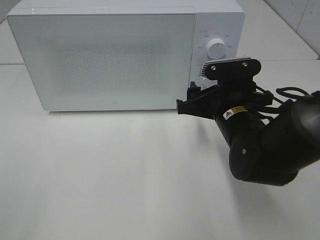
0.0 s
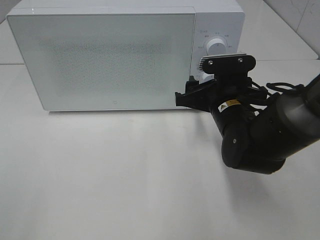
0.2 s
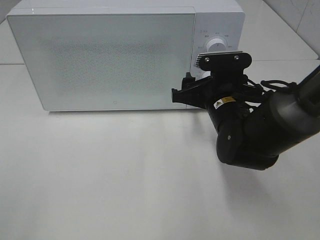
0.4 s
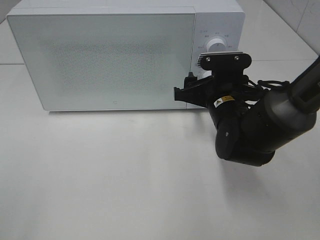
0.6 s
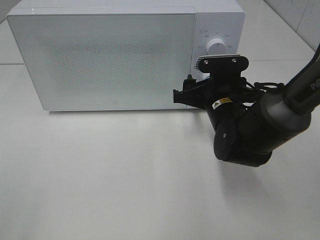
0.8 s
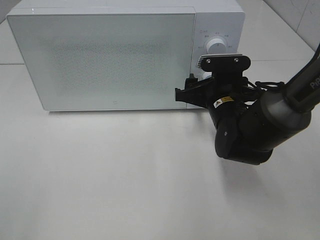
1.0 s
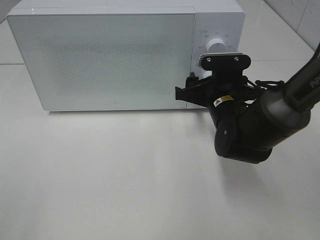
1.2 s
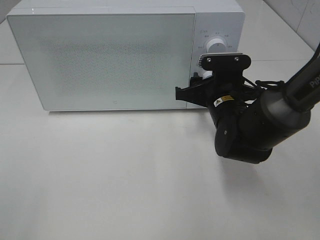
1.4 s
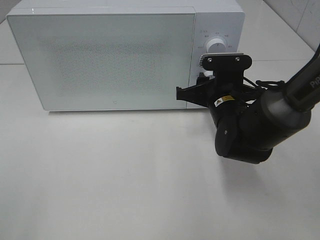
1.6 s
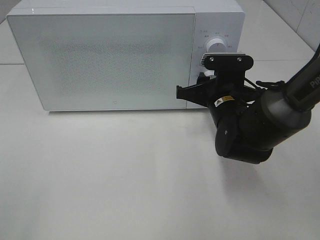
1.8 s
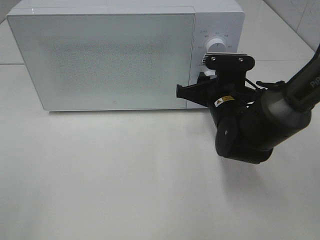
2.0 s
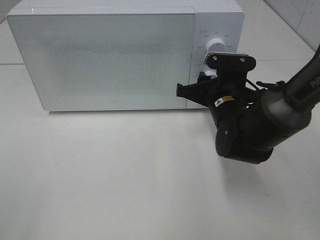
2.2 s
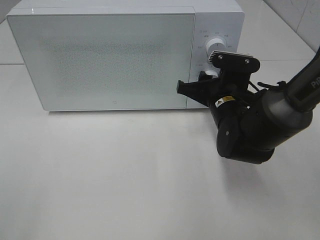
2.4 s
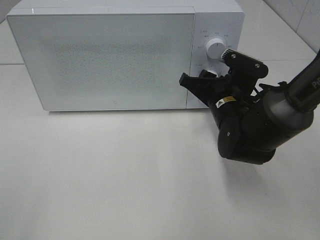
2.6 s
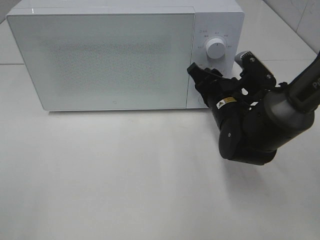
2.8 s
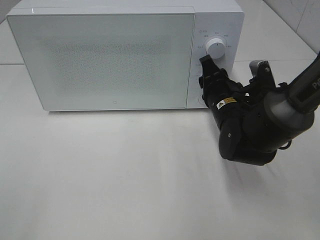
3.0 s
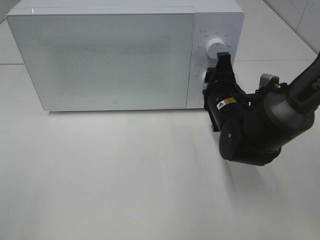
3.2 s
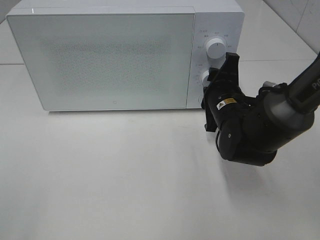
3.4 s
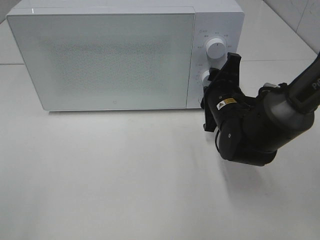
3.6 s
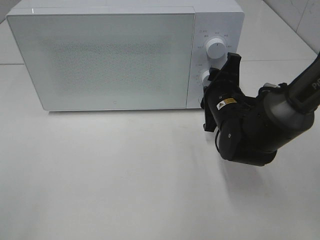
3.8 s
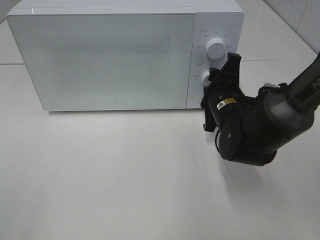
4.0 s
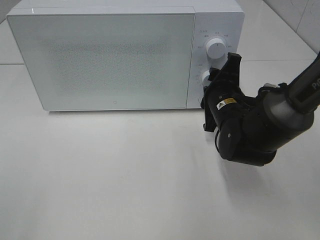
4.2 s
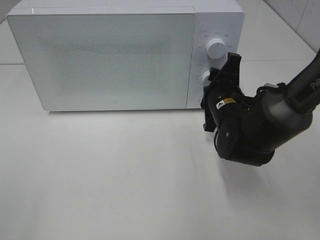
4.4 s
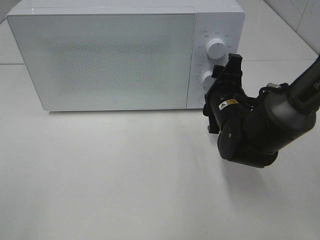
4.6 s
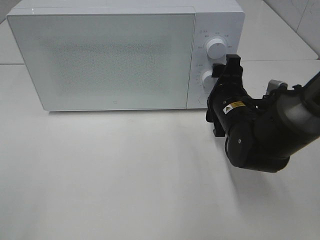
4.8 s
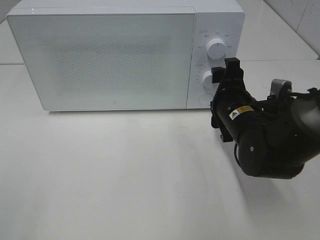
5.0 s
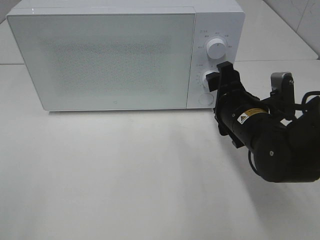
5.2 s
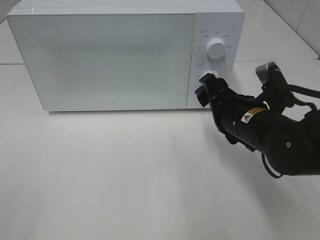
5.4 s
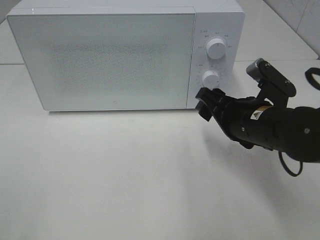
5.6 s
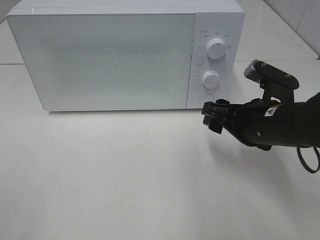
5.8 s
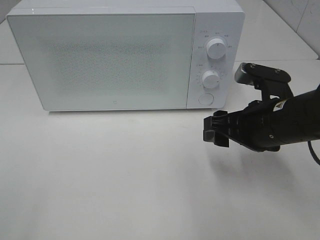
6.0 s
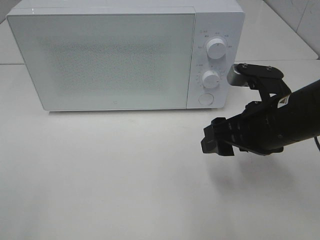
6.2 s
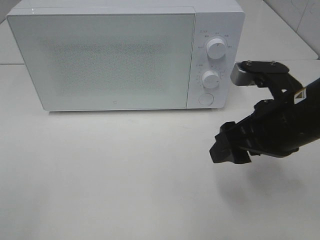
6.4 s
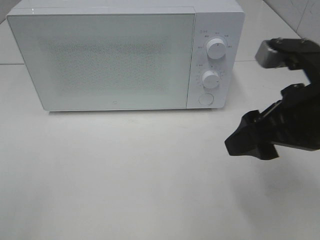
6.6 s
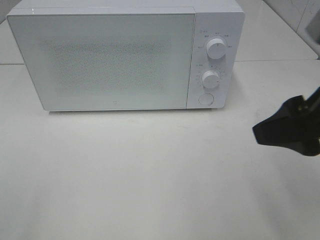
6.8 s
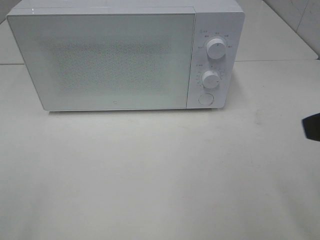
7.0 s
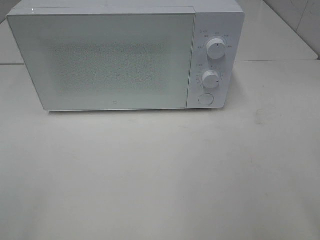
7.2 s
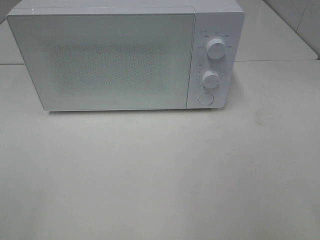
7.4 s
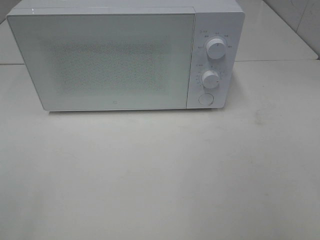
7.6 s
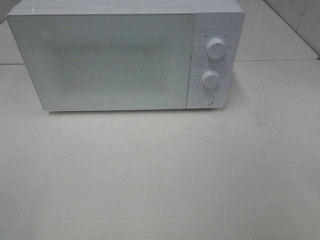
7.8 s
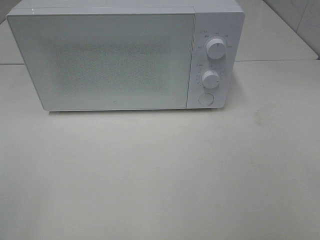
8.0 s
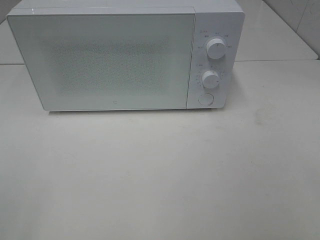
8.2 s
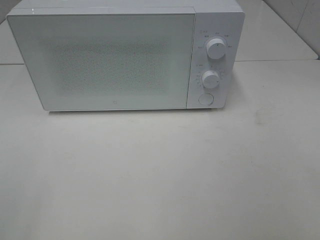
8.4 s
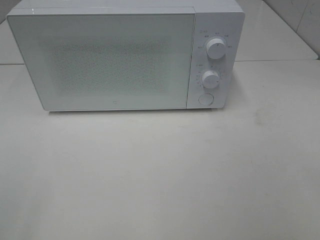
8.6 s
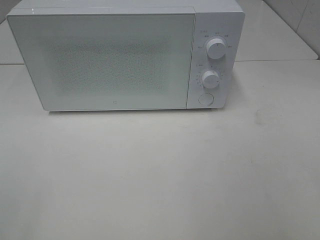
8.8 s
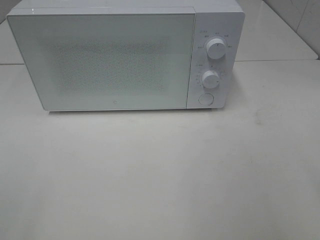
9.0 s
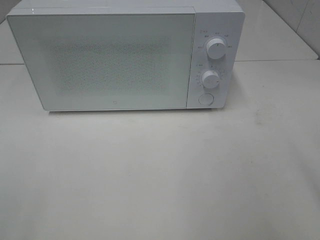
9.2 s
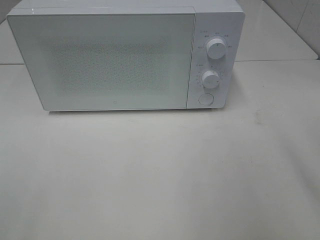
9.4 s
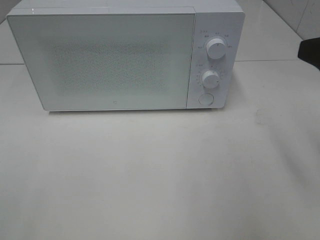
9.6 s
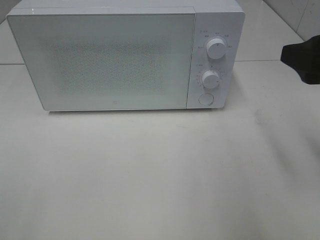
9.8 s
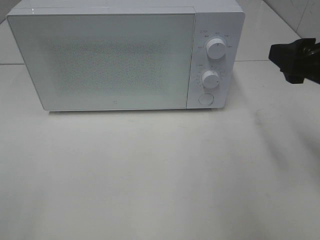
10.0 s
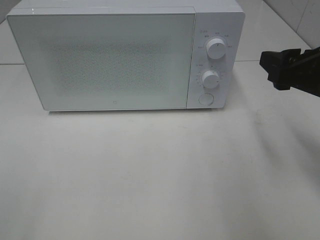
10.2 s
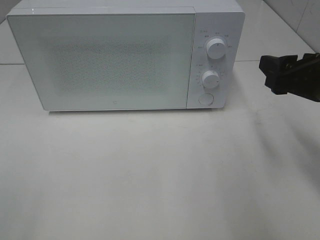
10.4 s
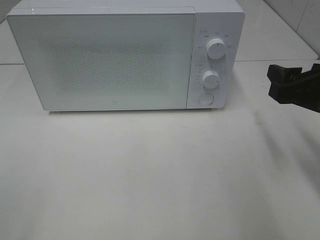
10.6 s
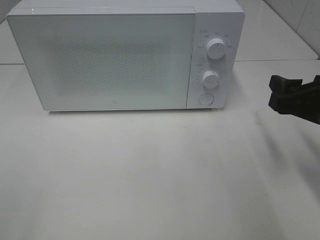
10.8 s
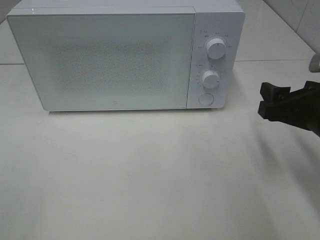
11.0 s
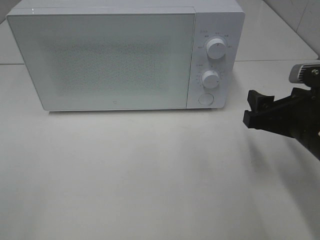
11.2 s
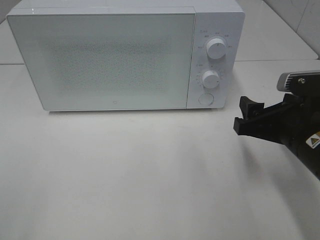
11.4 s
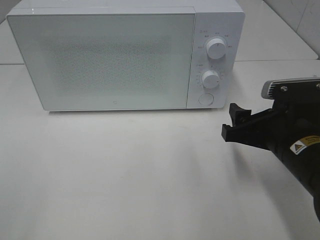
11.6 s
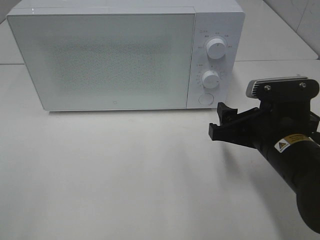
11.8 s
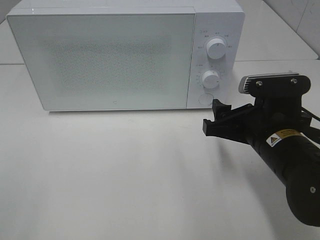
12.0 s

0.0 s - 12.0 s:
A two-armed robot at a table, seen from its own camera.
Task of the whole recording: Heat the burger.
Step, 0.0 s - 4.6 s: Right hand: twist timer button.
0.0 s - 1.6 s: The right gripper ends up roughly 5 cm from where it was, and closes up.
4.4 s - 6.0 s: The right gripper is displaced backward and upward by roughly 10 cm.
6.0 s - 7.6 s: The right gripper moves backward, upward and to the right, approximately 30 cm.
9.0 s - 10.4 s: The right gripper travels forward and downward by about 20 cm.
10.4 s - 12.0 s: The right gripper travels to the left and downward by about 10 cm.

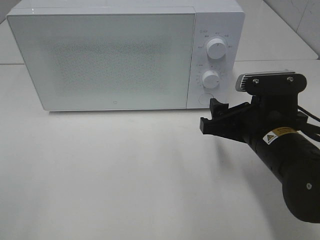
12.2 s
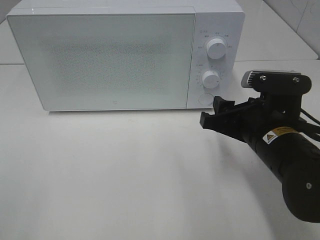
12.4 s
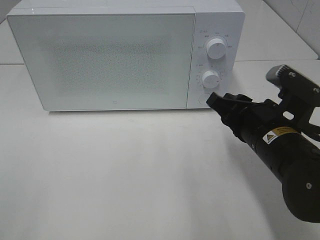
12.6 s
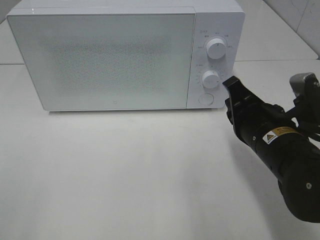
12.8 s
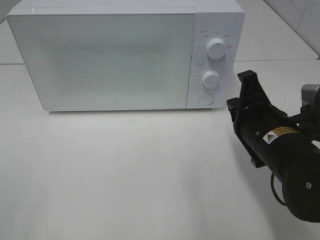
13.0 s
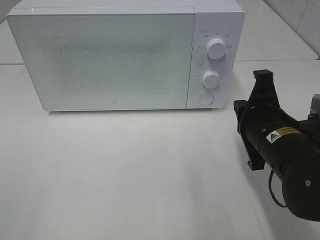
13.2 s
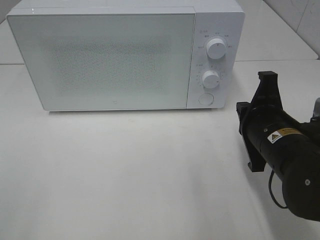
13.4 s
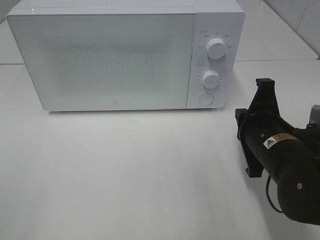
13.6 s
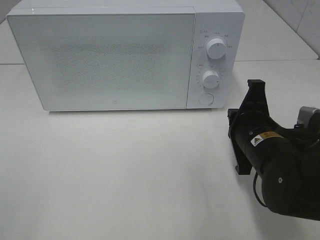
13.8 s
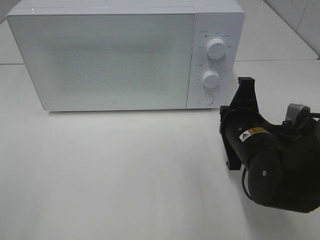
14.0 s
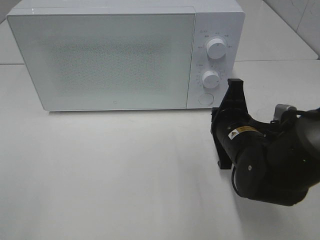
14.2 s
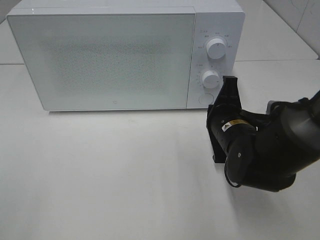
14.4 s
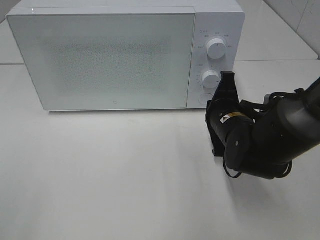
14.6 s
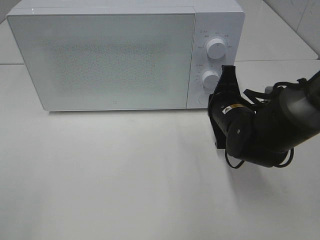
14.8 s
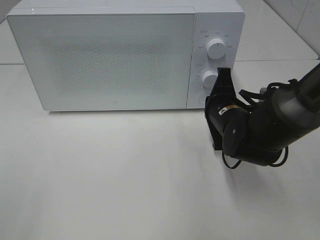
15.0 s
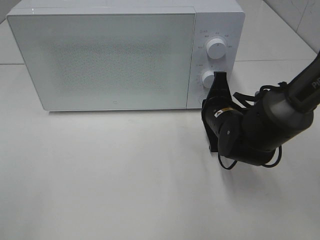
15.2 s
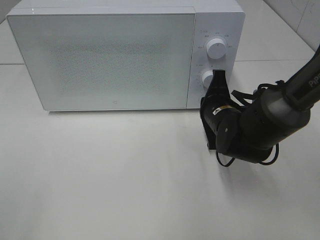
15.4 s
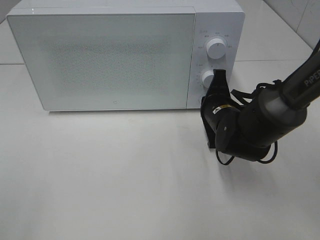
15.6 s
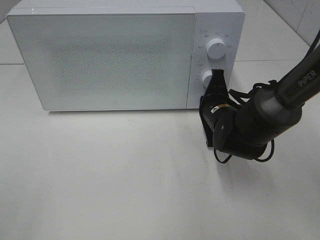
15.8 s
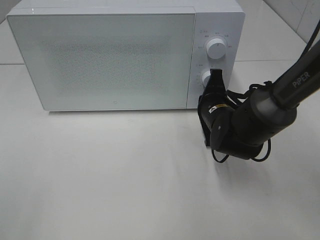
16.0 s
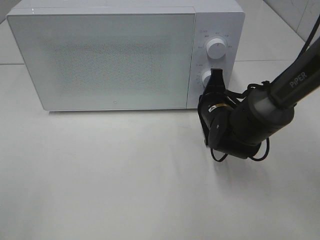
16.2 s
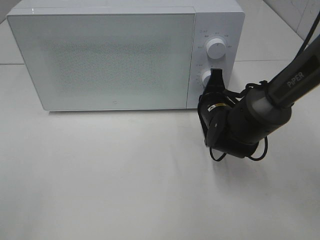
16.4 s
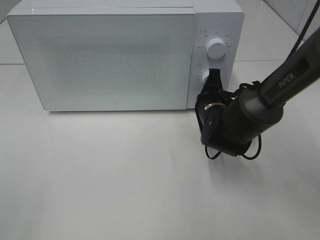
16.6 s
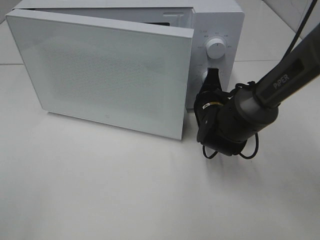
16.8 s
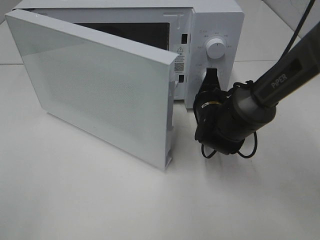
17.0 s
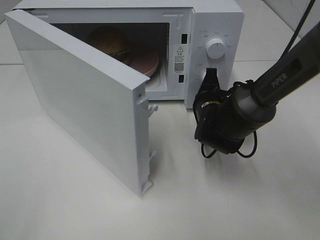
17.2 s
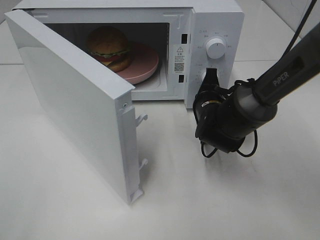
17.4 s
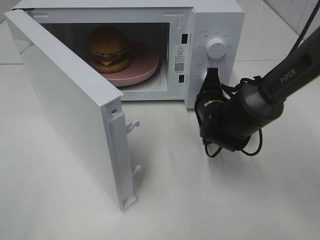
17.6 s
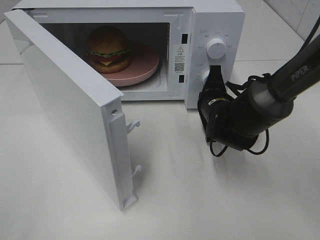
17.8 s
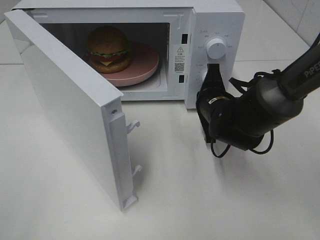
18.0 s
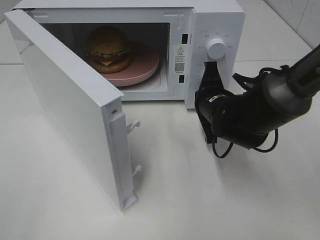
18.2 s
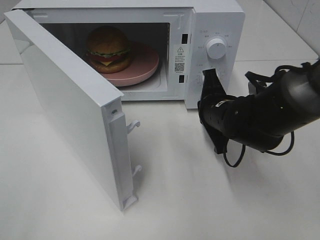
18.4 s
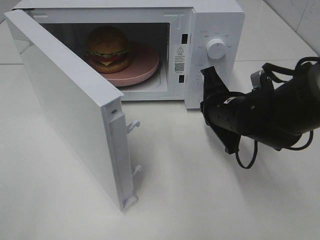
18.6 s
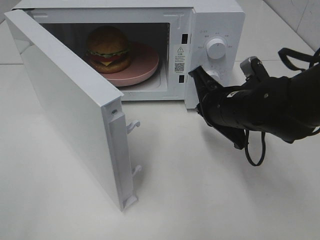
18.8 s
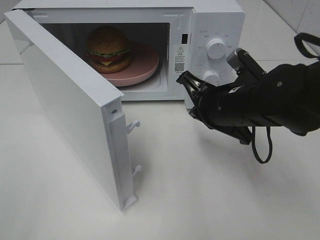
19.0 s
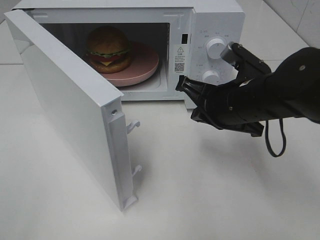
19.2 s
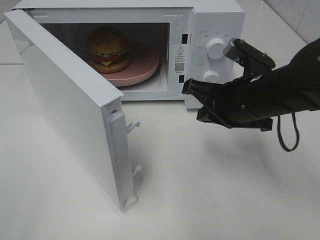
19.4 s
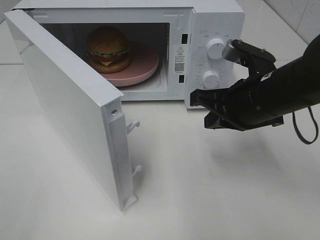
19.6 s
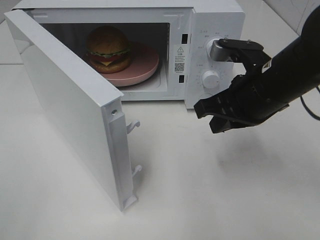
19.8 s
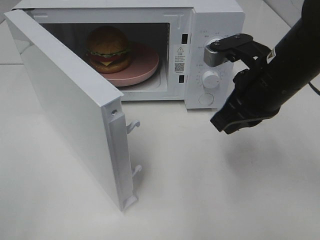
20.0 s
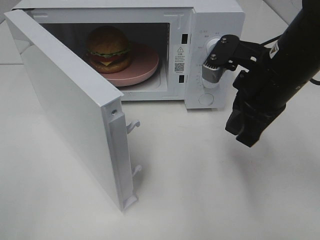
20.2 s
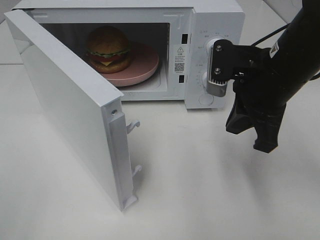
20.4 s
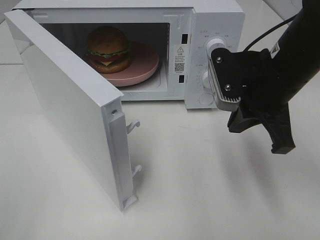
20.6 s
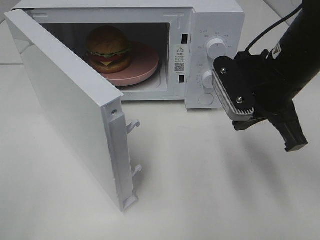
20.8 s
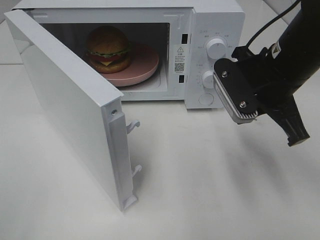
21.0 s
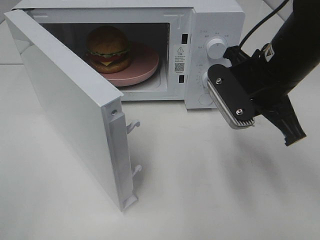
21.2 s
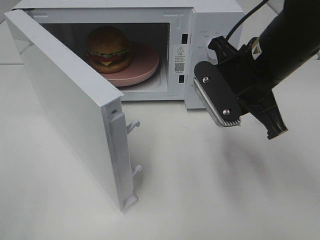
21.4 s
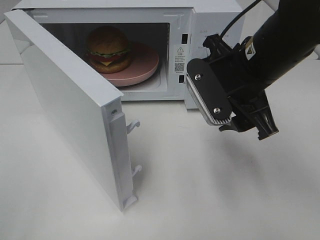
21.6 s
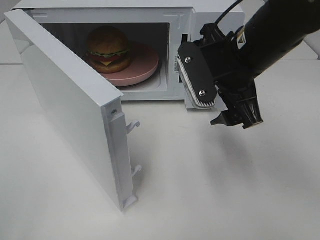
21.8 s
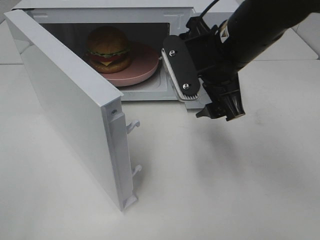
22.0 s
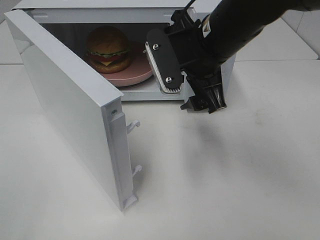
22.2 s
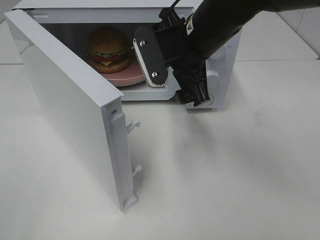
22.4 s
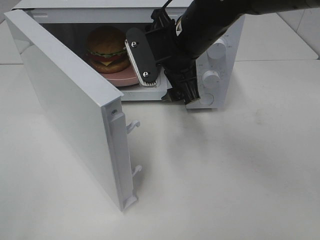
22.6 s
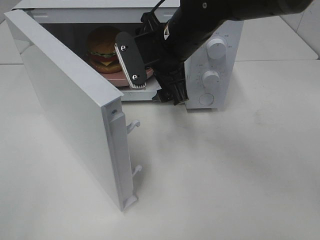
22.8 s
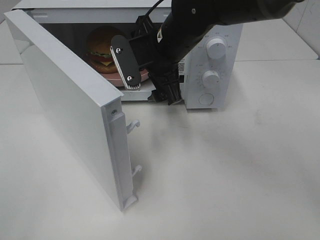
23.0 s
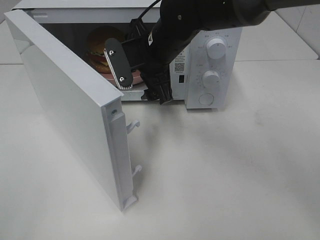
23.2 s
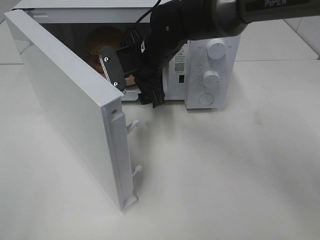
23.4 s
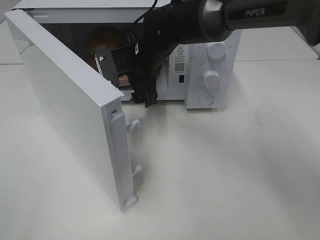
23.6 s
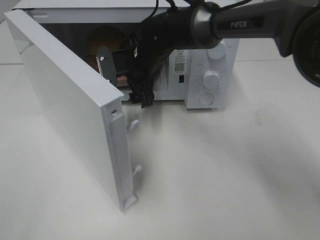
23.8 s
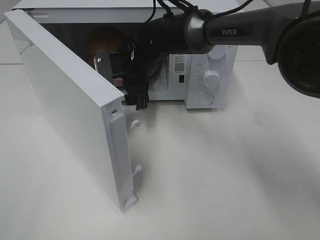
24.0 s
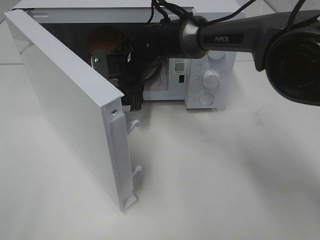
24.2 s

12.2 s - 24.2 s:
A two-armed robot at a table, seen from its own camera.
Task of the whole recording: Heat the burger.
Step, 12.2 s - 18.0 s: Right hand: press the switch.
12.2 s - 13.8 s: The right gripper closes up.
13.8 s - 15.2 s: The right gripper is displaced forward by about 10 cm.
15.2 s - 16.6 s: The grippers move only a little.
18.2 s - 19.8 s: The right gripper is displaced upward and backward by roughly 10 cm.
21.2 s - 22.6 s: The right gripper heads to the left and forward, covering about 15 cm, and opens.
22.6 s - 24.2 s: The right gripper goes roughly 15 cm forward, downward and to the left.
